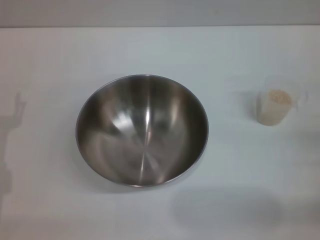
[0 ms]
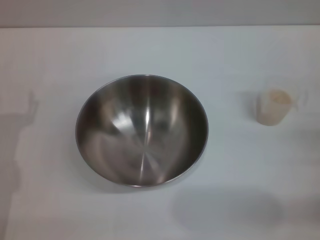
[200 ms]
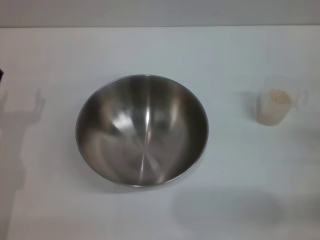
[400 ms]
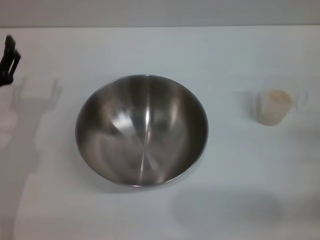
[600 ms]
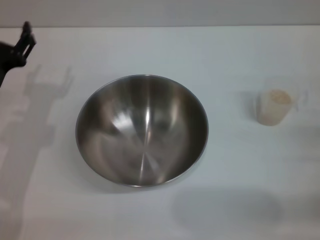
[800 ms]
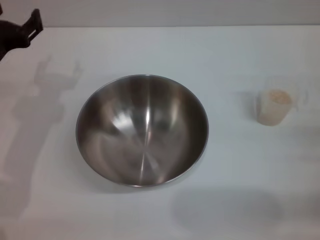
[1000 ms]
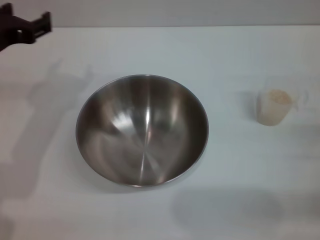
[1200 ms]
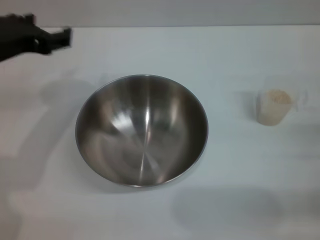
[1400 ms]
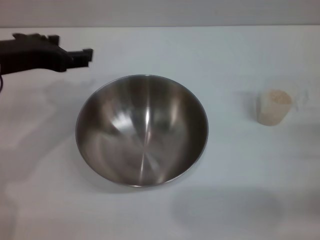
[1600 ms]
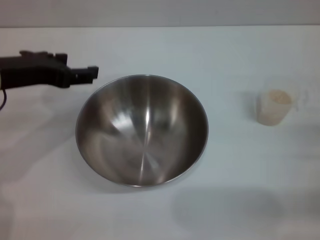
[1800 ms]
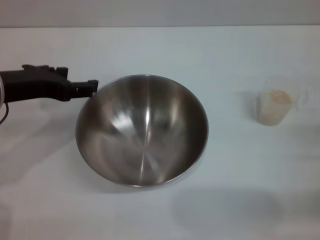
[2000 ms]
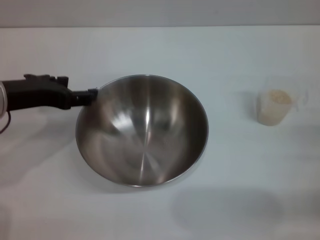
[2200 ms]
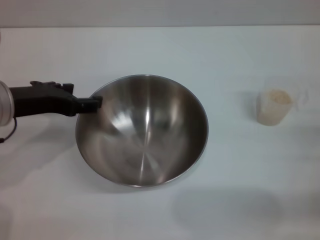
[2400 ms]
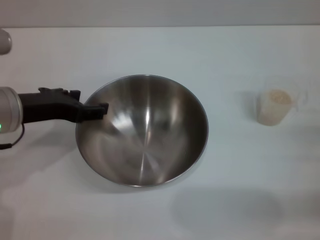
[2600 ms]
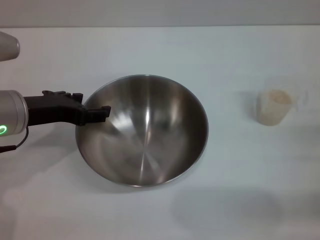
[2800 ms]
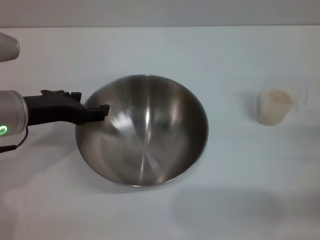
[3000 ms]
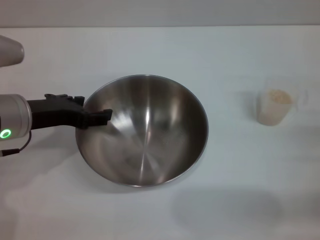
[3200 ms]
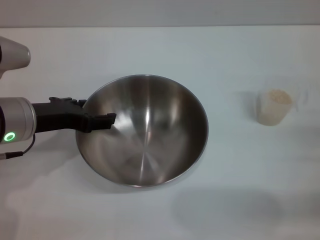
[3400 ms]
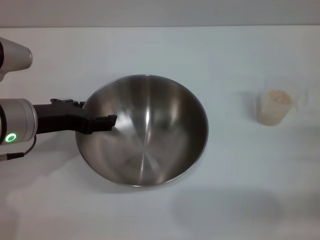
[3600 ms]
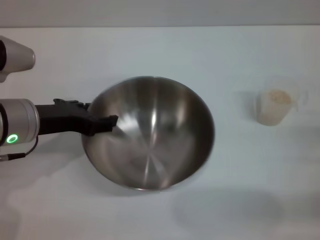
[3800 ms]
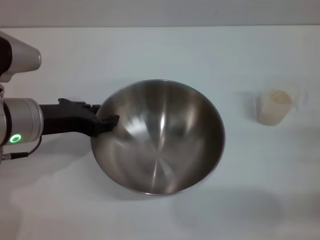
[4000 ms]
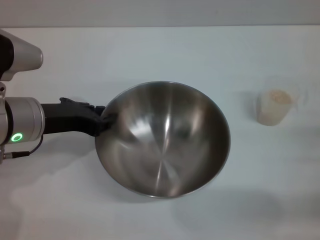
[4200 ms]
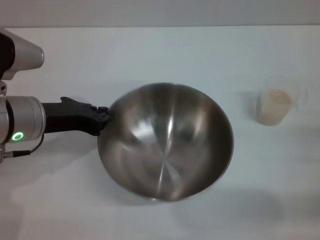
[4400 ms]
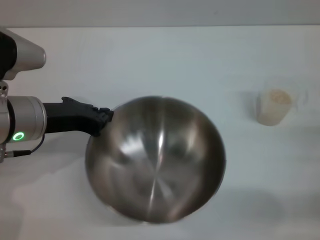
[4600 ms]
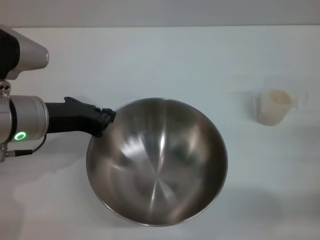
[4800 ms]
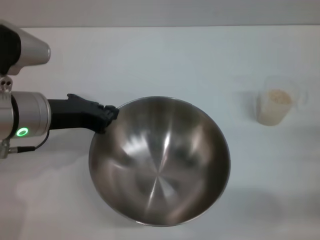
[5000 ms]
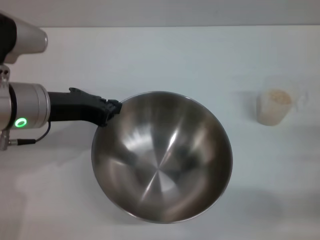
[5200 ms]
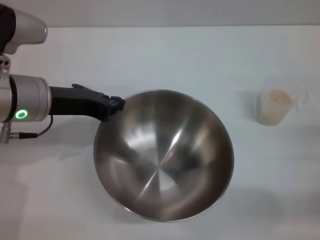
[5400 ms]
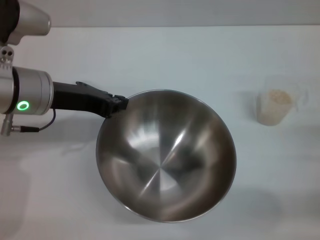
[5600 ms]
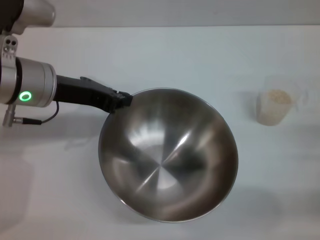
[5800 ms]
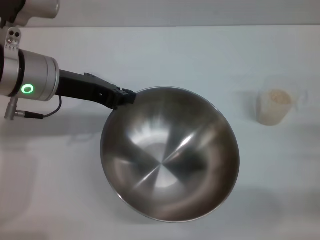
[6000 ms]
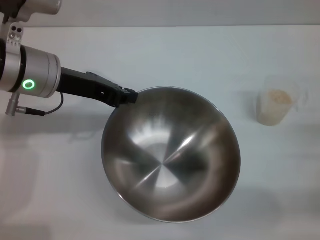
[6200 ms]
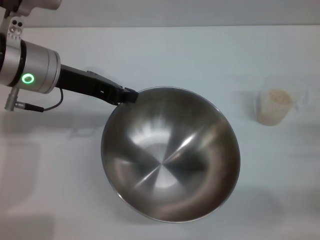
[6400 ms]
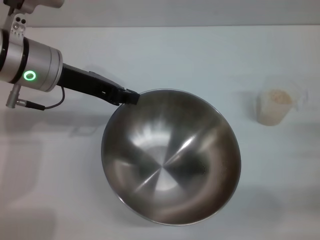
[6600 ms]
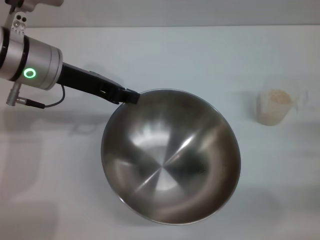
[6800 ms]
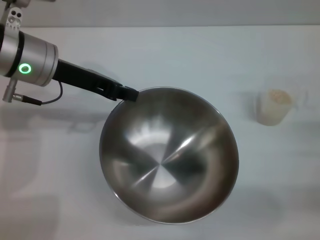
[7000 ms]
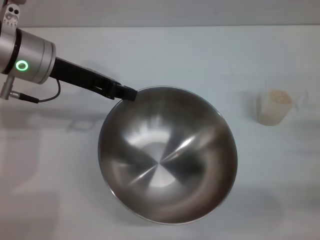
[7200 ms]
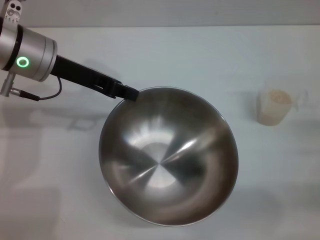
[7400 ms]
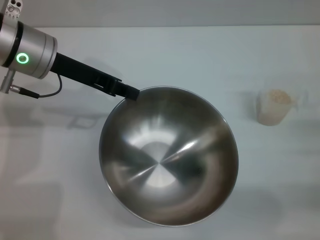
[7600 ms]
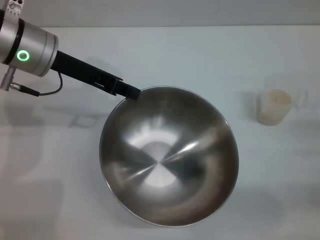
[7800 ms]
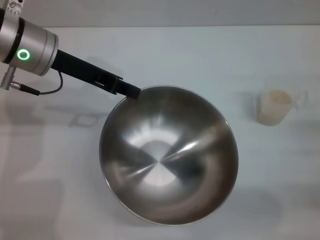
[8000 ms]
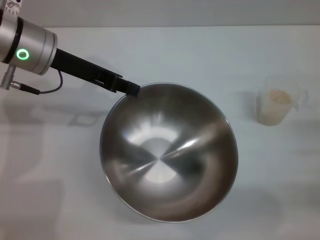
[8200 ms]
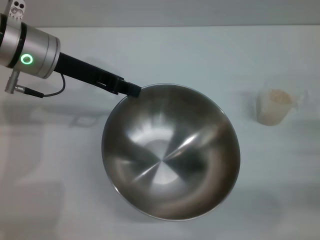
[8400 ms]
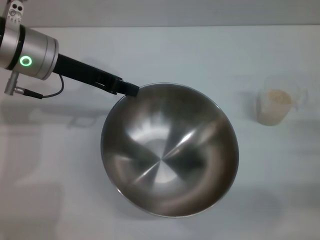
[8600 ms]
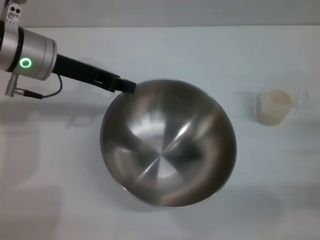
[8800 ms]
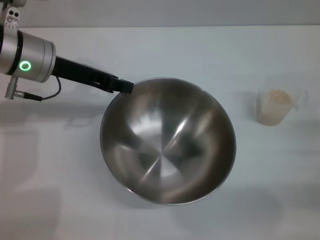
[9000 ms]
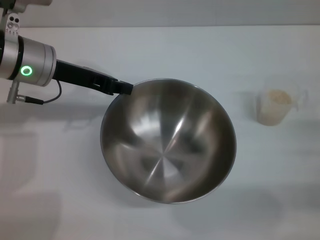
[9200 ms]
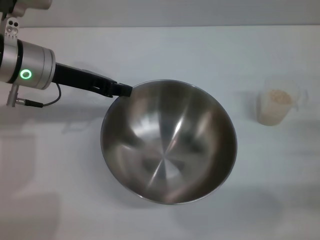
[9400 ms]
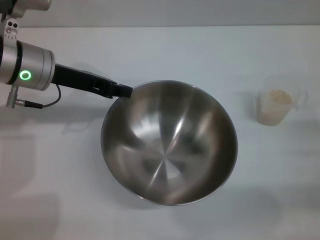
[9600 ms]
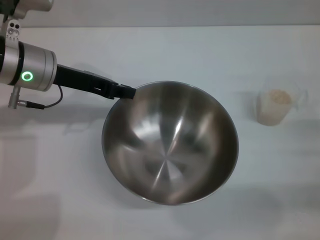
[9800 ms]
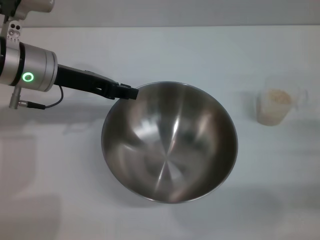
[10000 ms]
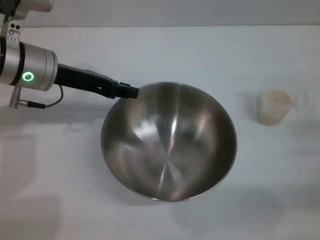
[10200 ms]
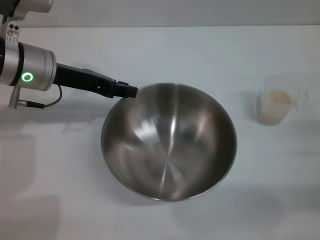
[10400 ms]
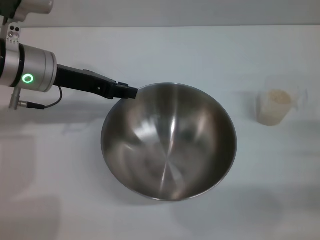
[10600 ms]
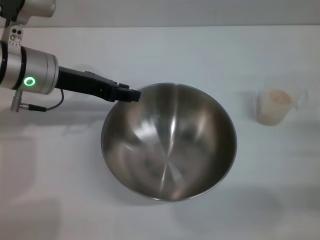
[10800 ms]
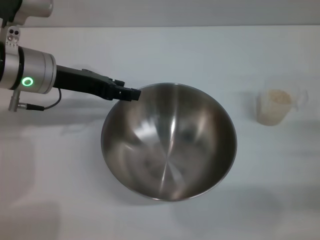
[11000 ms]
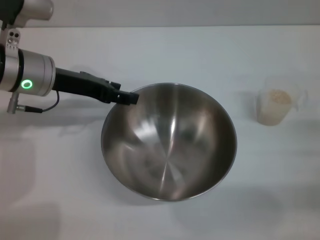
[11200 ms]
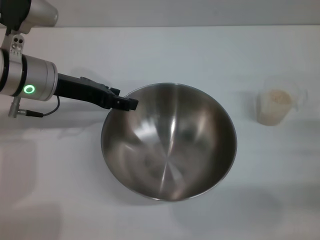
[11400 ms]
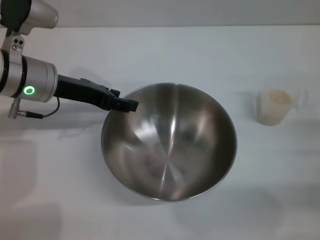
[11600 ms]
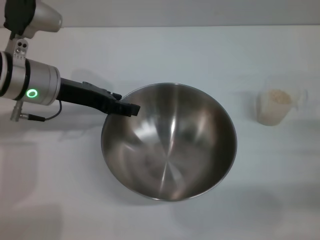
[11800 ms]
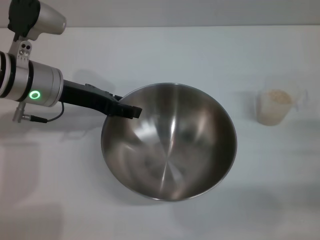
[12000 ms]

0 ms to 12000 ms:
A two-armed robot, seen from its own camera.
Task of the whole recording: Place the bowl in the middle of the table with one hand and pour the rice from the grain cup into it with the other hand.
0 ms to 1600 ms: The left gripper moves upward and to the right, approximately 20 cm.
1600 ms to 3000 ms: The left gripper goes roughly 5 cm downward.
3000 ms to 4400 ms: The left gripper closes.
4400 ms to 6000 ms: The left gripper moves forward, approximately 5 cm, and closes up.
6000 ms to 7600 ms: The grippers stay close to where they were, moving slightly.
9000 ms to 10400 ms: The grippers move only a little.
10400 ms to 12000 ms: The left gripper opens up.

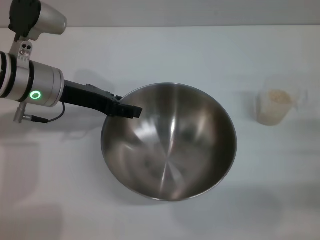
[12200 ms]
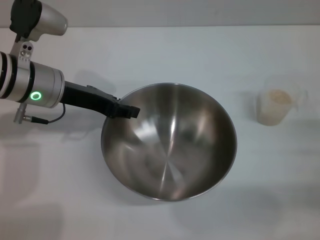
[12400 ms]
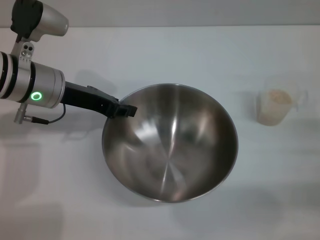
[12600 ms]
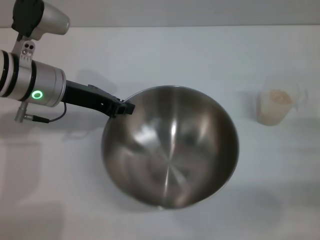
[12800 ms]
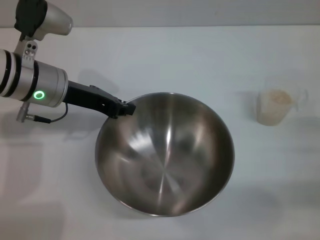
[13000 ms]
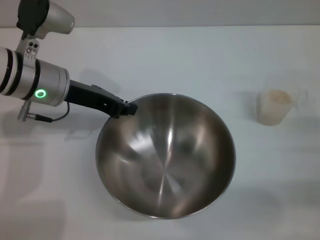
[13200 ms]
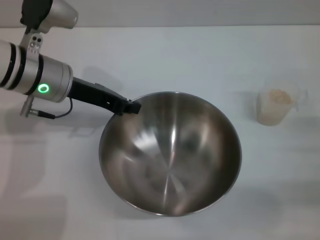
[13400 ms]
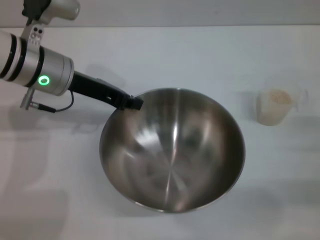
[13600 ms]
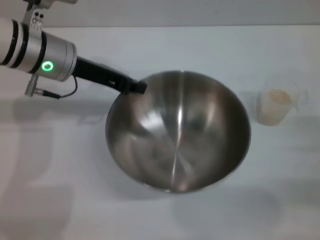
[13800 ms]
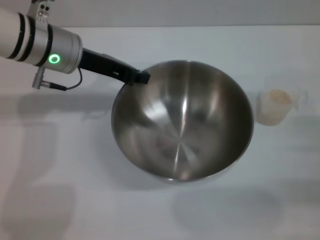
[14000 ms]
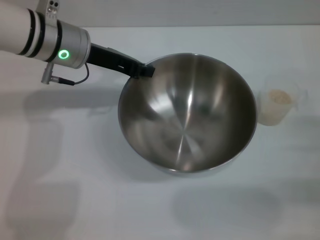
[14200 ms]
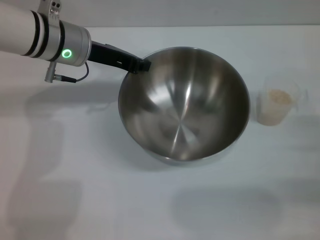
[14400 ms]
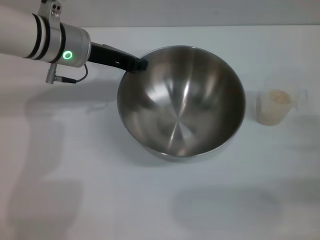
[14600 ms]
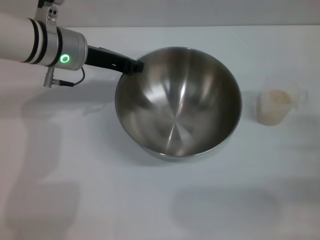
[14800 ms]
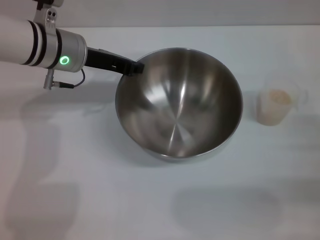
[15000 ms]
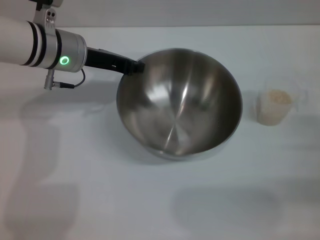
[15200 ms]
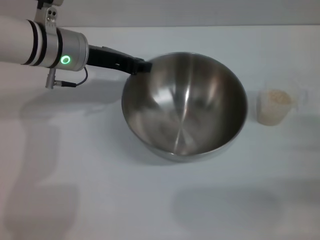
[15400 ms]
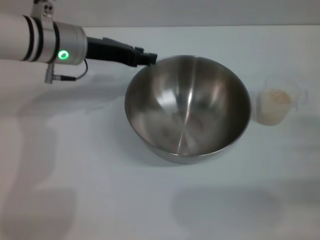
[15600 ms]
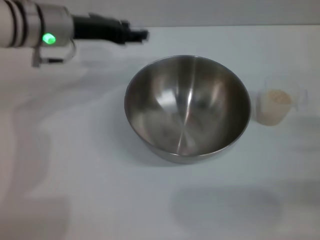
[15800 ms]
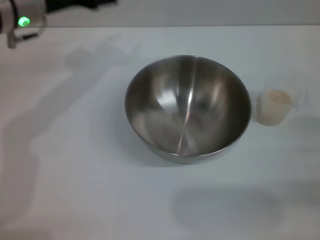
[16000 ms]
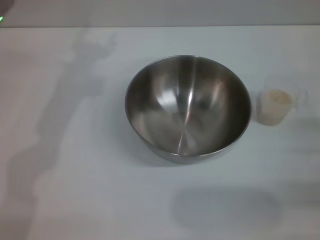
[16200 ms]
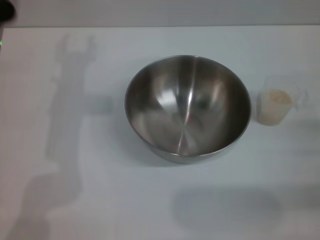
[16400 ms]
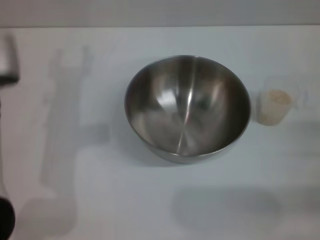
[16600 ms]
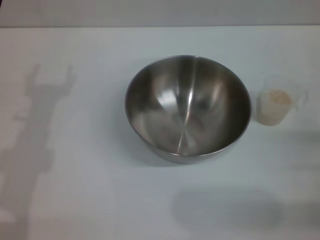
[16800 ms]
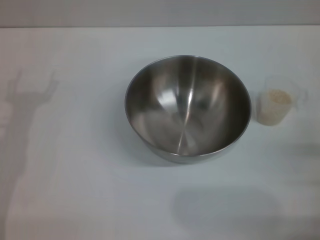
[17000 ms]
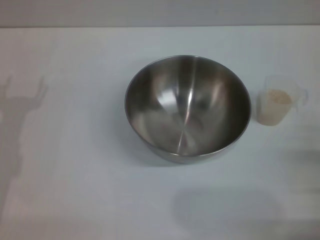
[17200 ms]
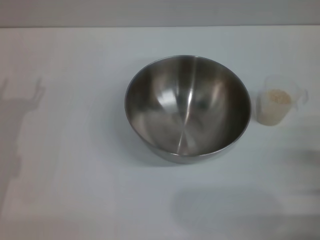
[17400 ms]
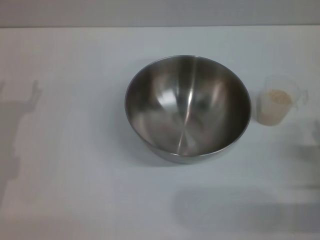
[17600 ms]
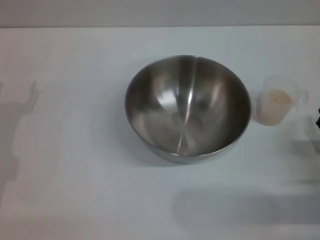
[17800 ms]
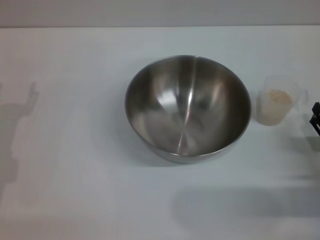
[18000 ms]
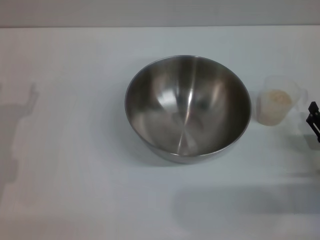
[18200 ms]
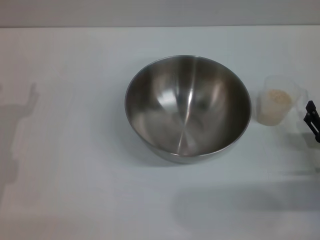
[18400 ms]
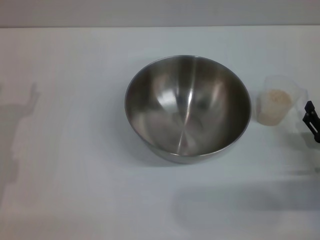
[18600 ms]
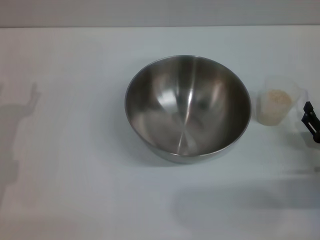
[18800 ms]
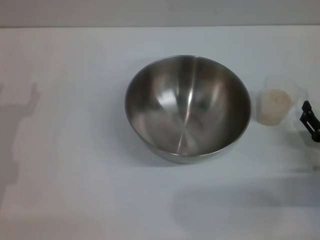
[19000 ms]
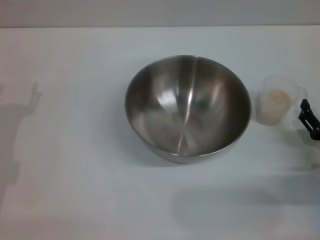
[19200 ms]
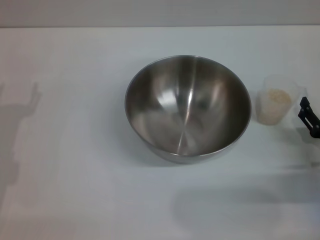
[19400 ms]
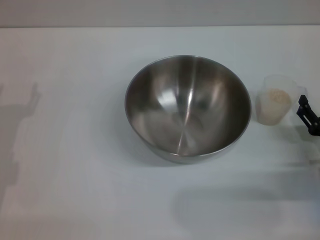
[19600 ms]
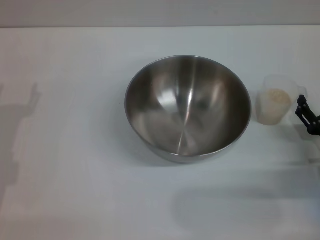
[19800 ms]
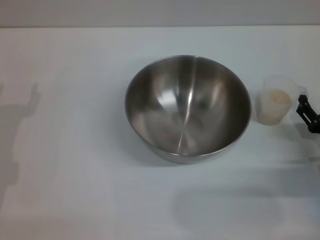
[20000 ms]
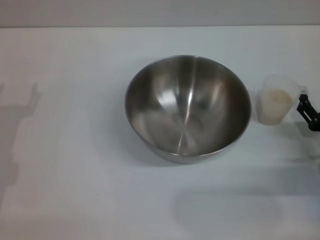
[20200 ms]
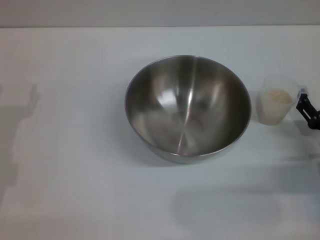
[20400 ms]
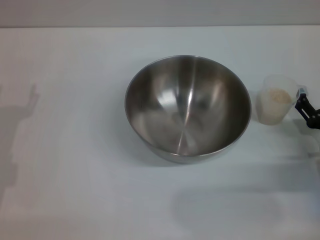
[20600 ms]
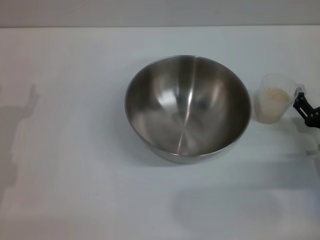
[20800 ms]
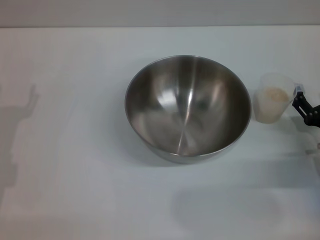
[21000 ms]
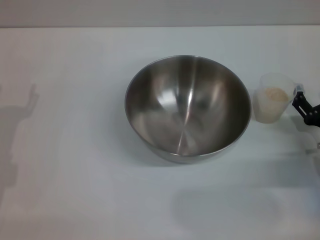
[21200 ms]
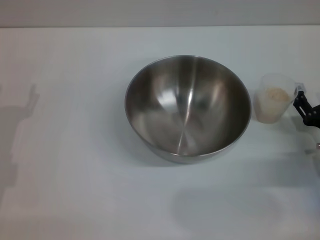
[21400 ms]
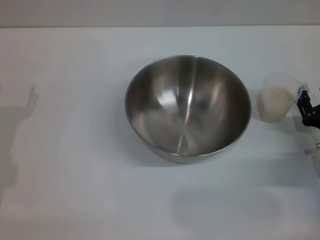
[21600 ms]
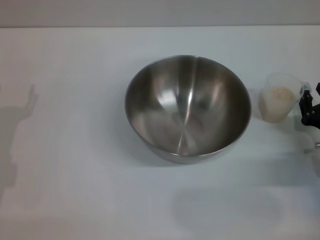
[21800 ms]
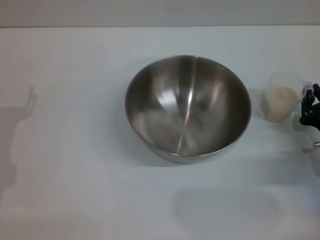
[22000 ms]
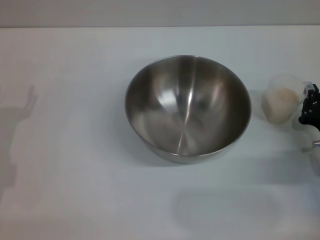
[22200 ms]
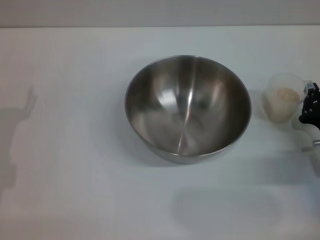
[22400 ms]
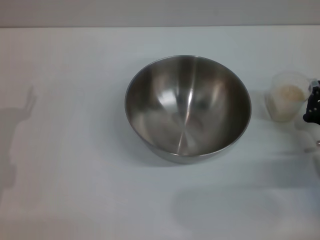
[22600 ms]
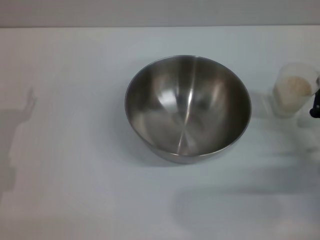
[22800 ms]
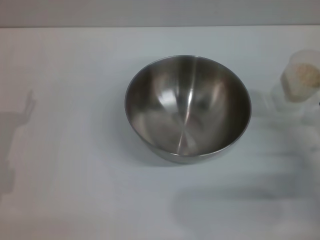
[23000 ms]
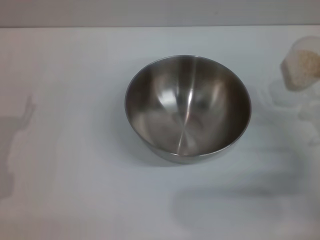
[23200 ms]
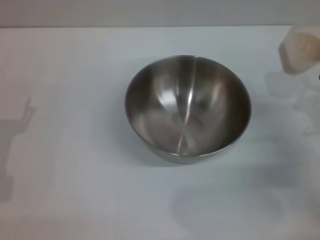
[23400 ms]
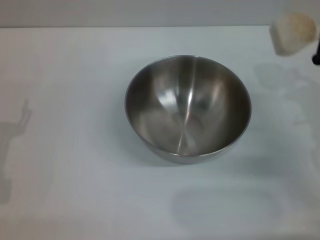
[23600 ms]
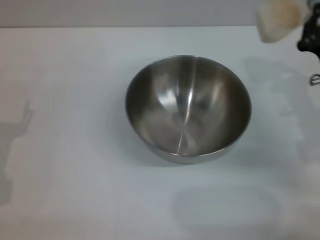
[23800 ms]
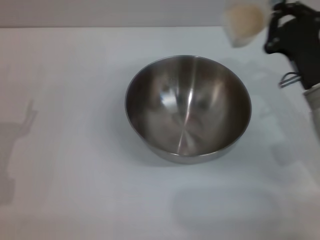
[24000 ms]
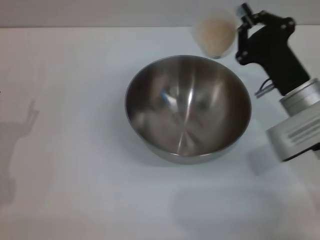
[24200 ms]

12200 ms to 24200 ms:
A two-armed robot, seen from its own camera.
Task of the whole recording: Place the bowl in the middle of the table with one hand and pour the rice from the grain cup into it with the other hand.
Step, 14000 ms to 15600 ms: Place the bowl in the center of view with the left gripper.
Step, 15800 ms to 24000 ms: Pick up the cup with rice in it with the left gripper.
12200 ms to 13800 ms: The left gripper closes.
15200 ms to 16600 ms: The left gripper heads backward, covering some 10 cm, and opens up.
16600 ms to 18200 ms: The left gripper travels downward and to the left by roughly 15 cm. The right gripper moves downward, roughly 5 cm.
18200 ms to 21200 ms: The grippers make only small movements.
21200 ms to 22600 ms: The right gripper closes its fingers.
22600 ms to 24200 ms: The right gripper heads to the left, upward and forward, covering some 15 cm.
